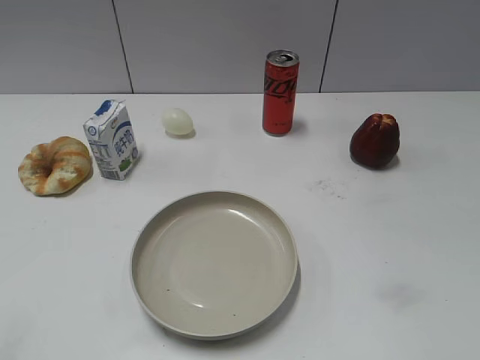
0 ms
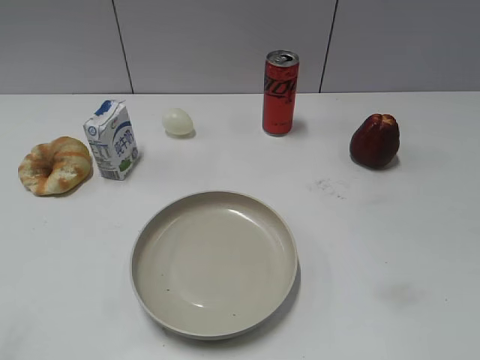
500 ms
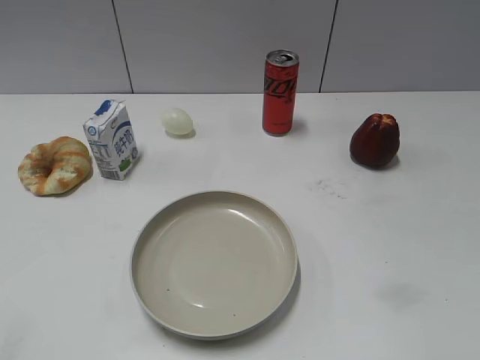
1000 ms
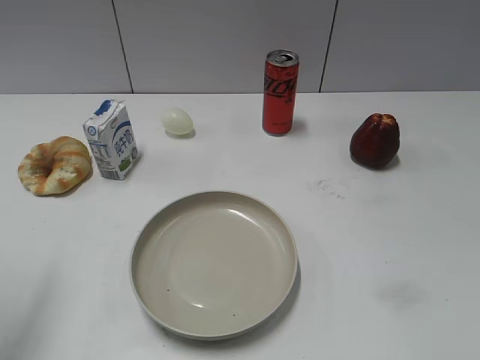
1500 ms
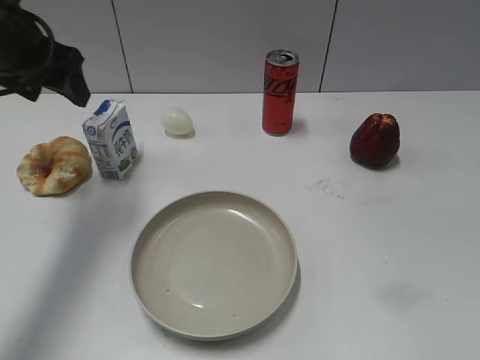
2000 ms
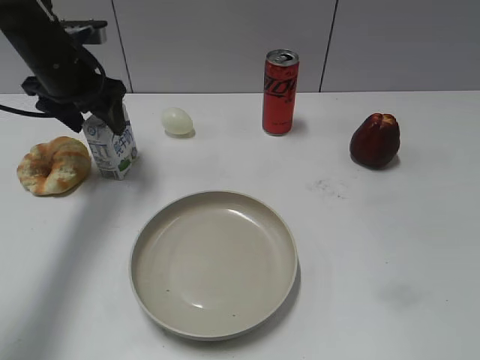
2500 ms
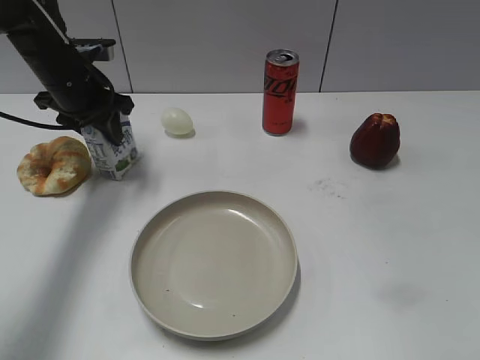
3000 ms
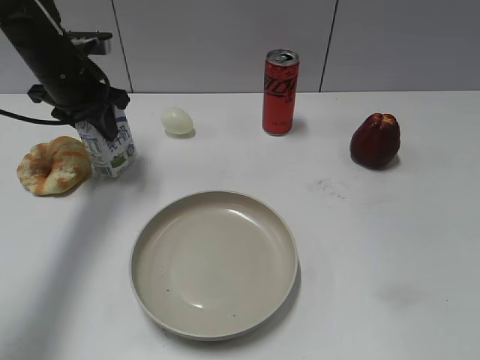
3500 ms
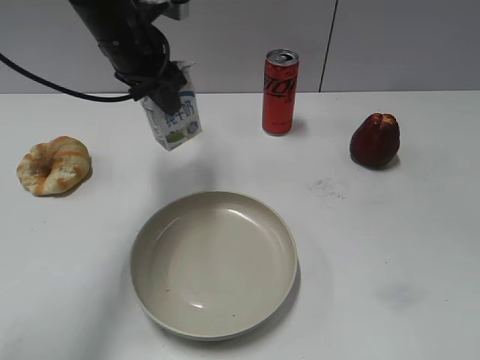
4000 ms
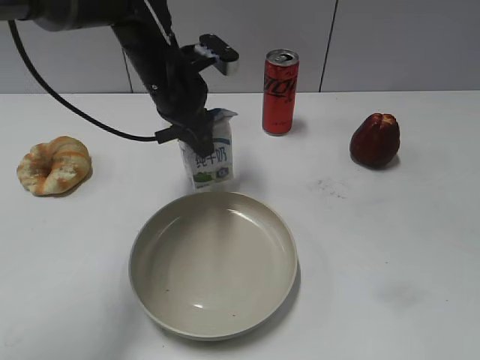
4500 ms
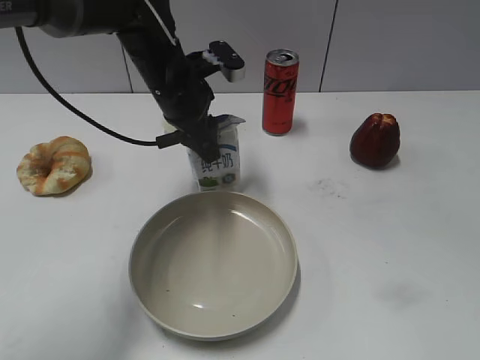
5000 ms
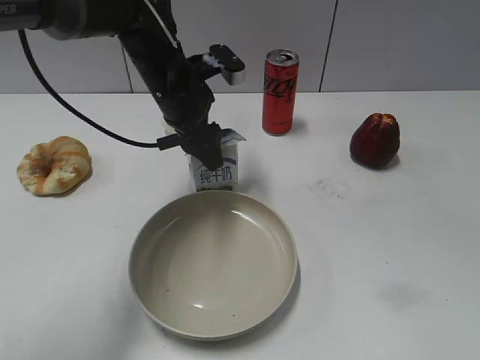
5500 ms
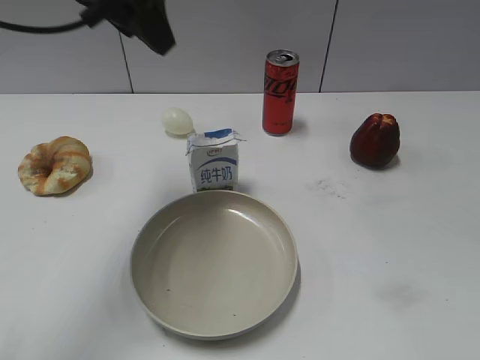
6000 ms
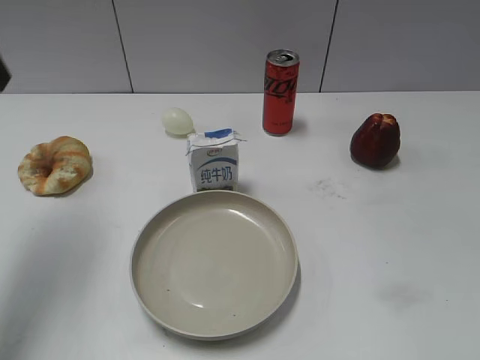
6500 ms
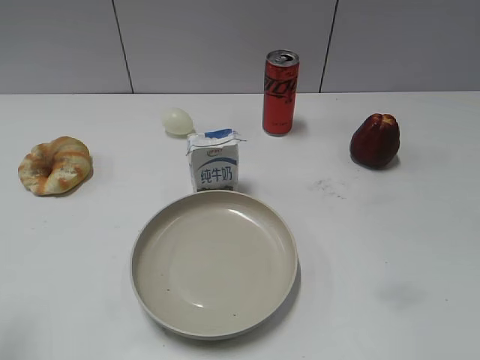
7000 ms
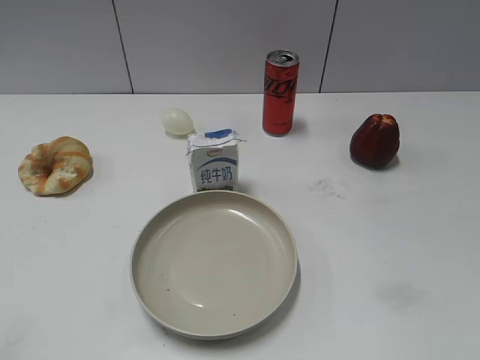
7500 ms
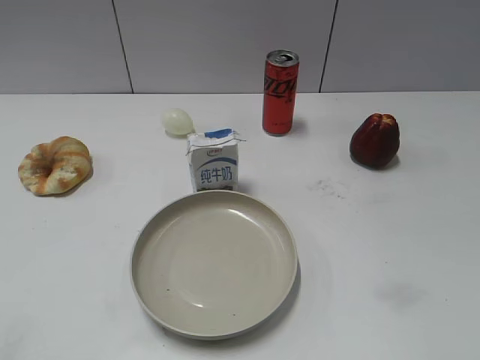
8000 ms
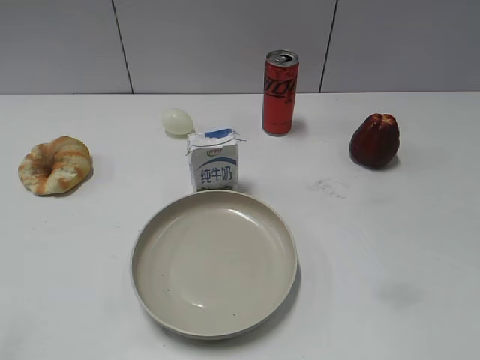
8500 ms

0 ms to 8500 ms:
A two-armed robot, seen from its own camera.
Step, 1000 ms to 3000 ms: Grasp the milk with left gripper.
Step, 3500 ms to 5500 ms: Place the milk on the table with left gripper.
2000 ms to 4000 ms: The left gripper is displaced to the right by roughly 10 cm, and closes.
4000 ms to 6500 ms: The left gripper travels to the left, backward and upward by roughly 25 cm, and opens its fingers.
6500 ms to 8500 ms: The left gripper heads backward, covering approximately 30 cm.

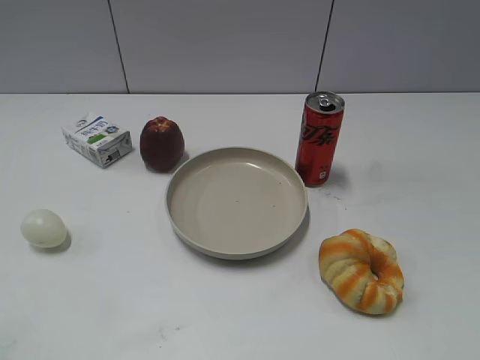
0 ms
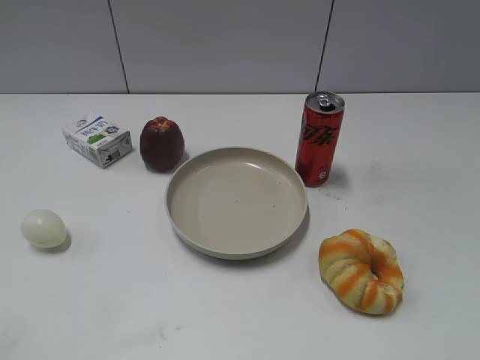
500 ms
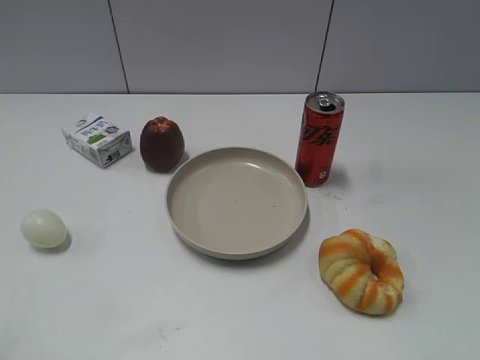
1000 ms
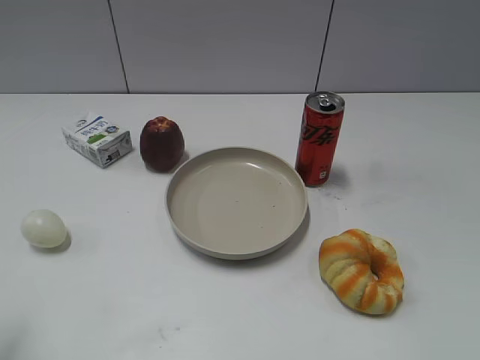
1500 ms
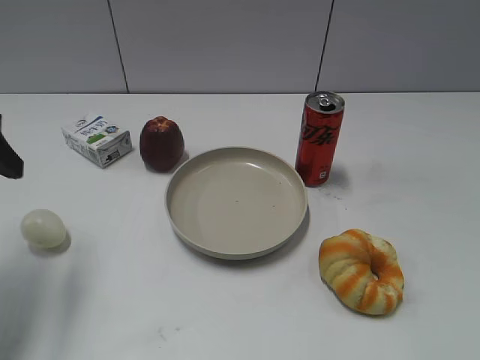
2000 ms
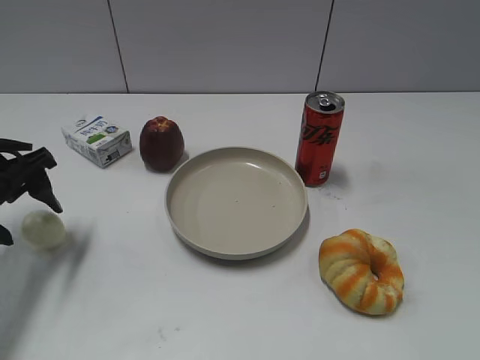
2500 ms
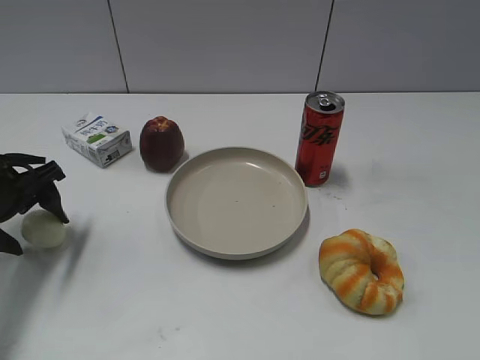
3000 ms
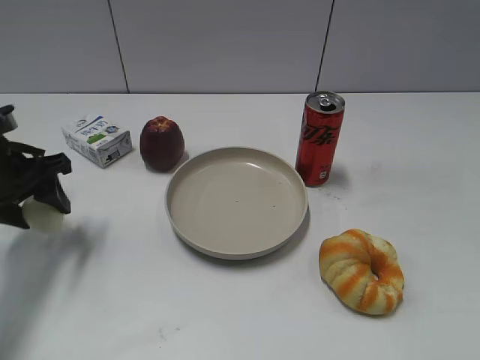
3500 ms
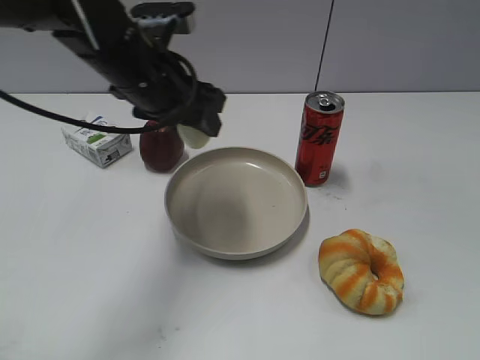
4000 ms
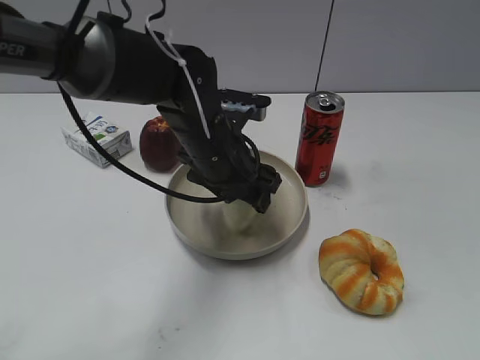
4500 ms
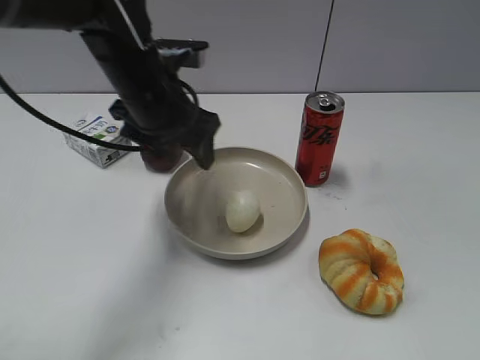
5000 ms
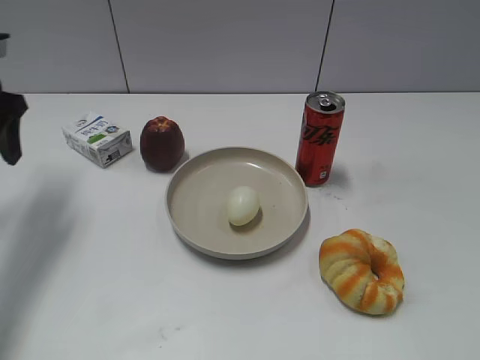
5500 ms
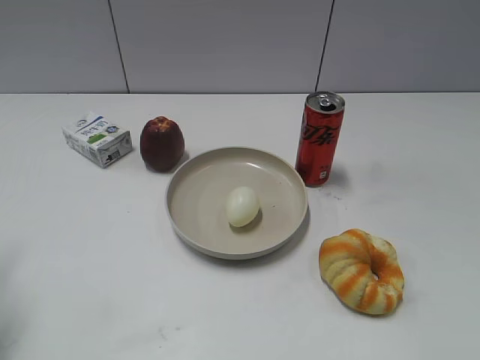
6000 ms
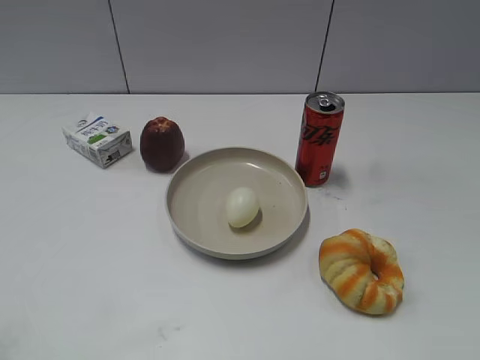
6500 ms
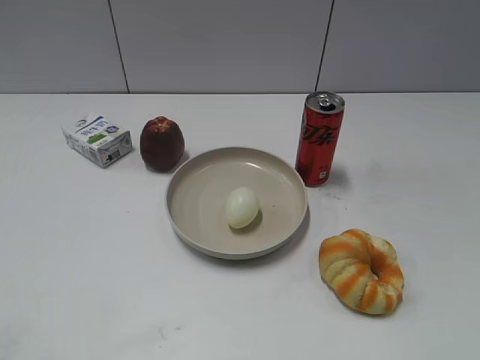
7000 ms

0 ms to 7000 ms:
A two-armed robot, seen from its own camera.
Step, 1500 ms to 3000 ms: Grasp the egg with left gripper.
Step, 3500 ms to 4500 ms: Place the egg on the plate with left gripper.
2000 ms to 3500 ms: The left gripper shifts about 15 cm downward and forward, and closes.
3500 ms to 5000 ms: The left gripper is displaced to the right by about 20 cm, and opens its fingers.
5000 ms to 7000 ms: The left gripper moves backward and to the left, roughly 40 cm.

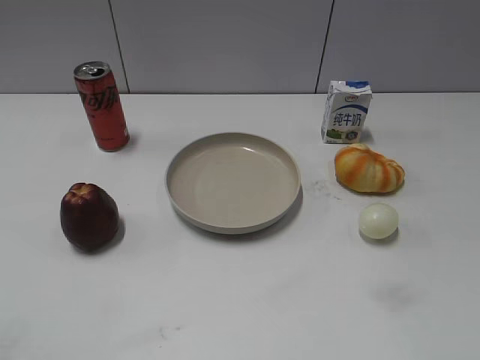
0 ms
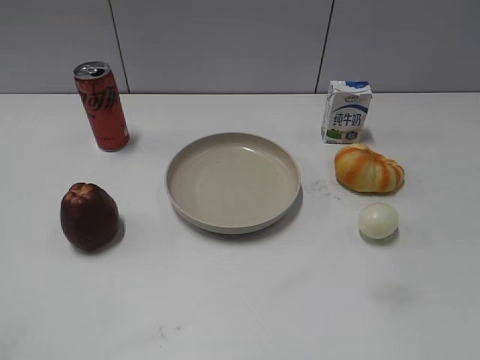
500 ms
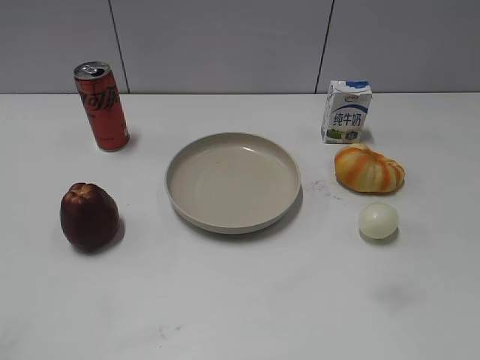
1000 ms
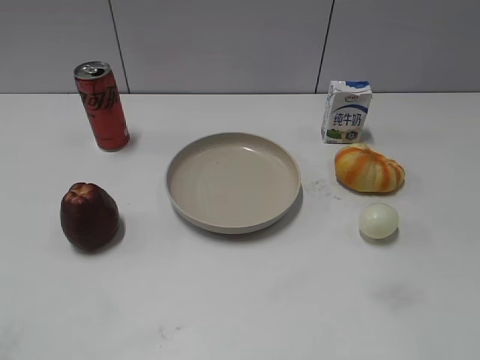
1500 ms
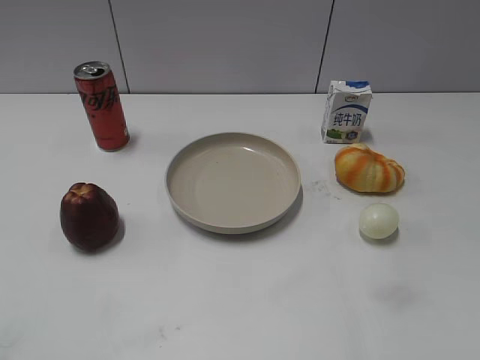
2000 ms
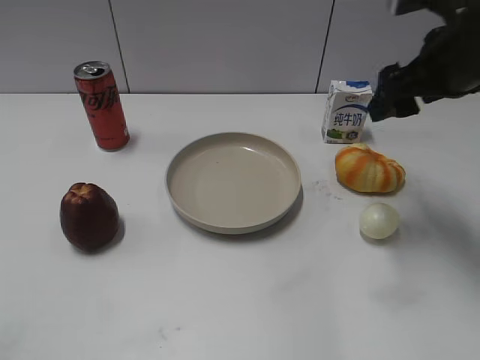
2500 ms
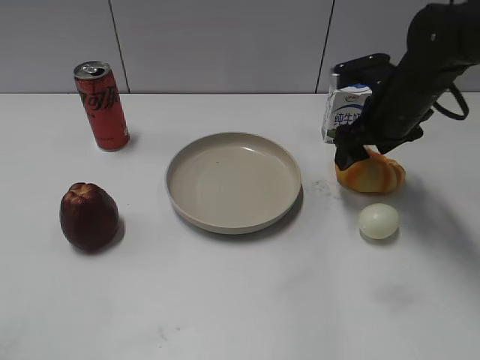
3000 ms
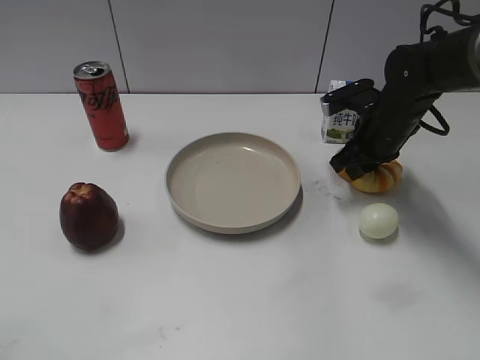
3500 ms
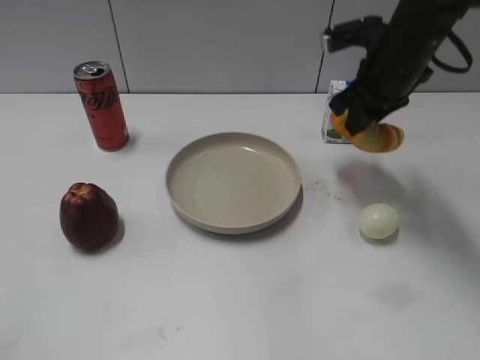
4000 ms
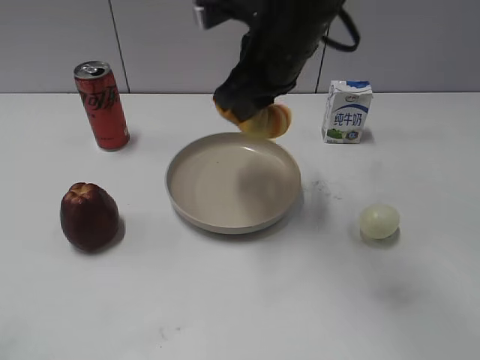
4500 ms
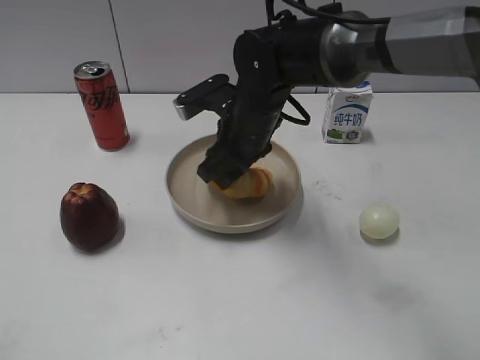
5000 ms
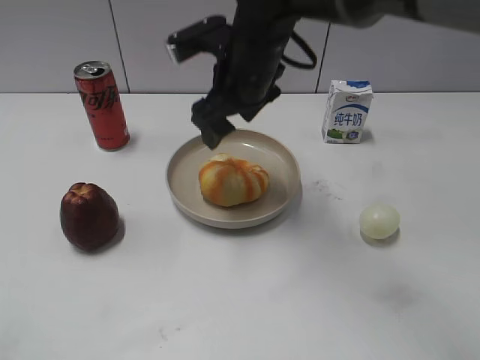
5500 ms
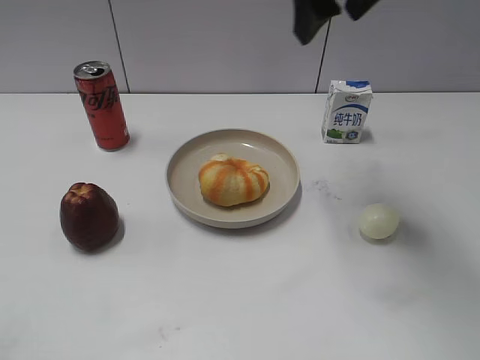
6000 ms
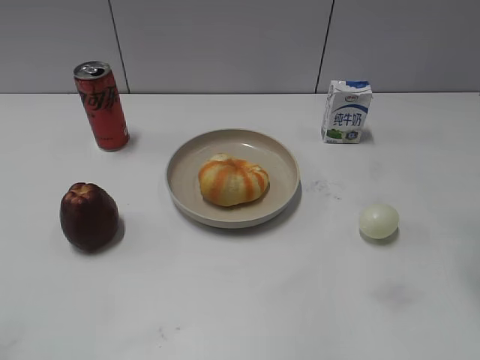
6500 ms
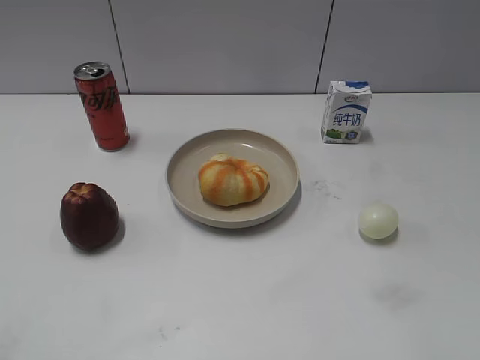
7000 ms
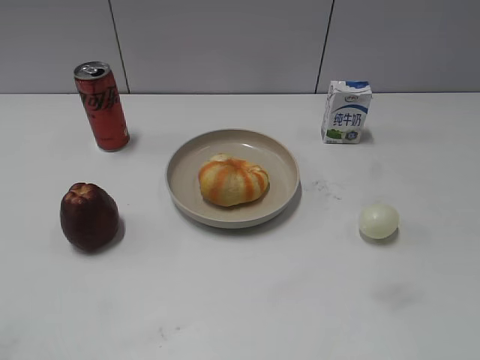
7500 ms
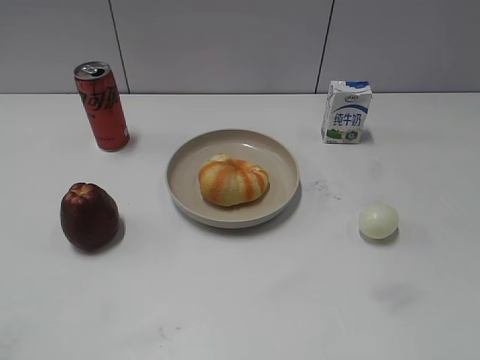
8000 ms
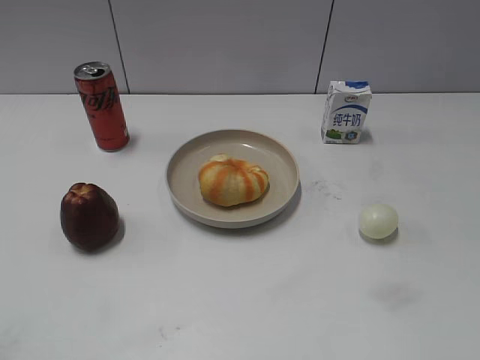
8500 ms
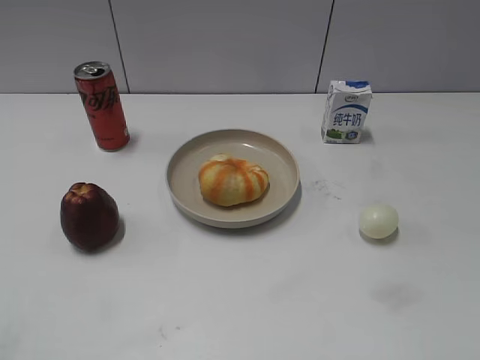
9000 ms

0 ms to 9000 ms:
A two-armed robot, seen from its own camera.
Step, 1500 ms to 3500 ms: Grasp the round bread with right gripper.
Step, 4000 ms to 5500 ms: Place the round bread on the plate with right gripper.
2000 ms to 4500 ms: The right gripper goes roughly 30 cm to the left and forward, and closes up.
4500 ms to 7000 ms: The right gripper shifts roughly 35 cm backward and to the right, and opens.
